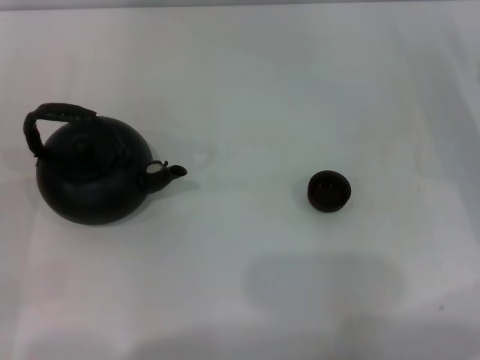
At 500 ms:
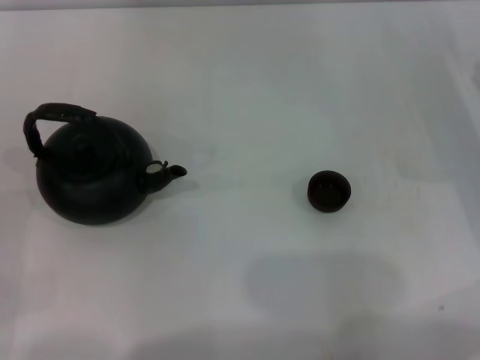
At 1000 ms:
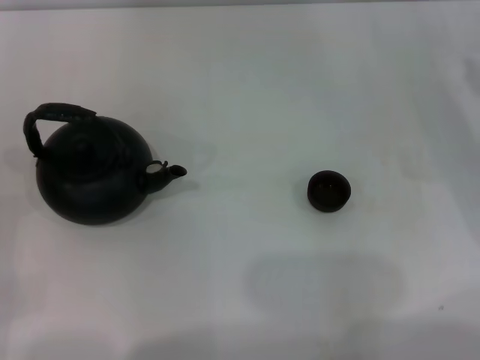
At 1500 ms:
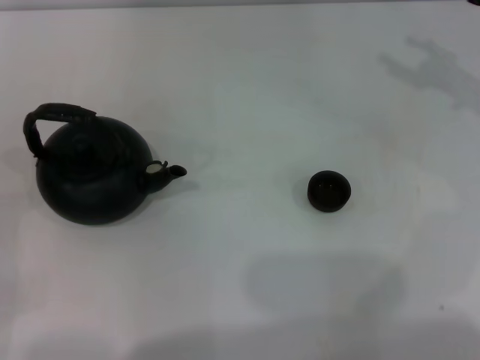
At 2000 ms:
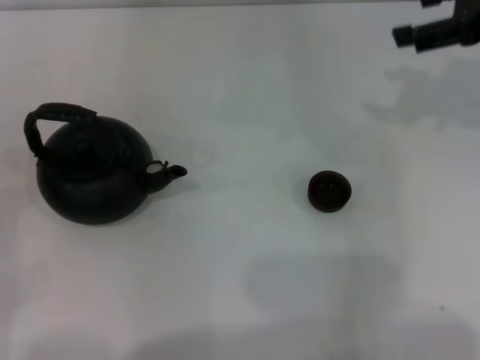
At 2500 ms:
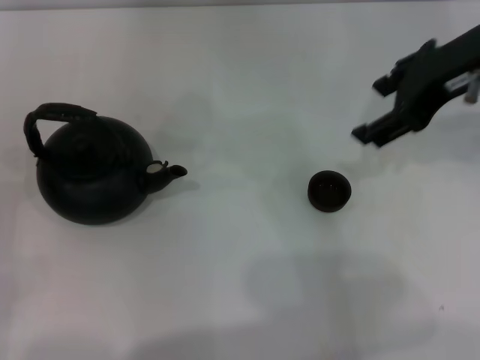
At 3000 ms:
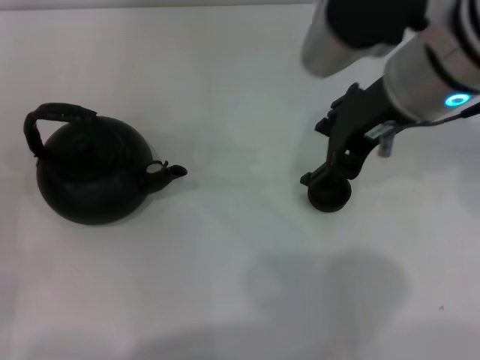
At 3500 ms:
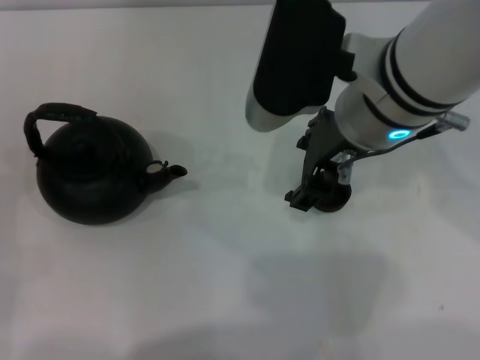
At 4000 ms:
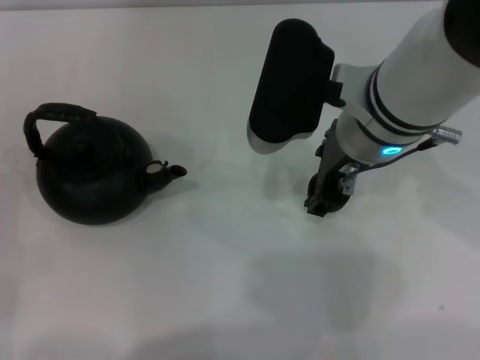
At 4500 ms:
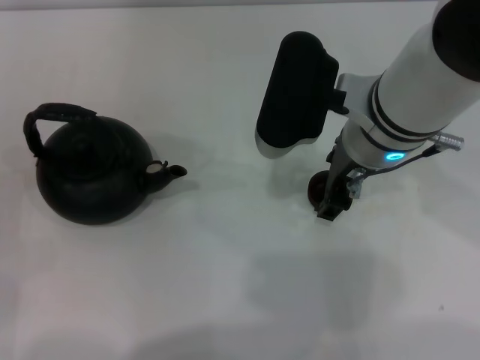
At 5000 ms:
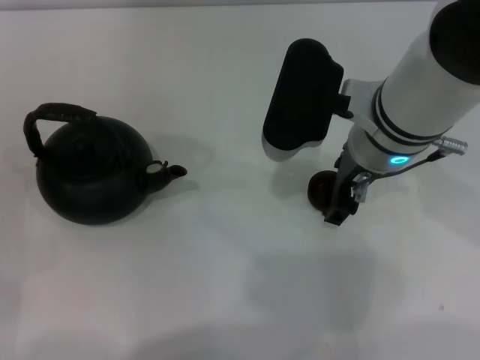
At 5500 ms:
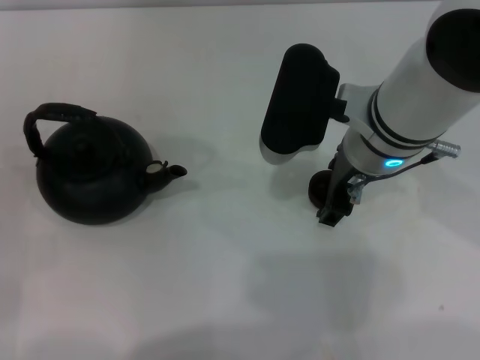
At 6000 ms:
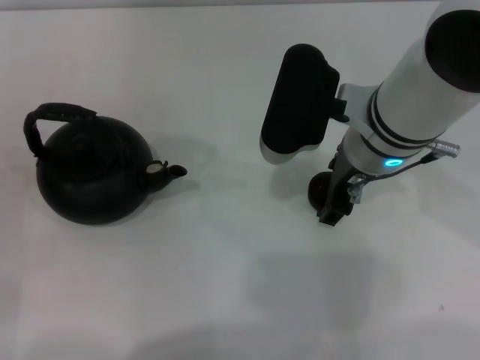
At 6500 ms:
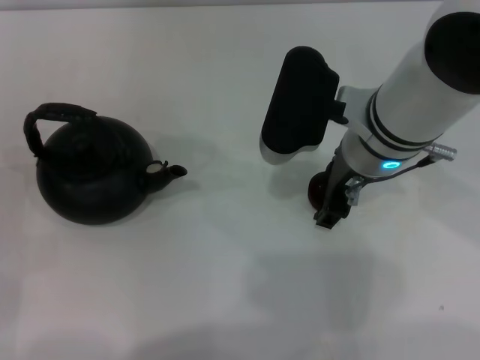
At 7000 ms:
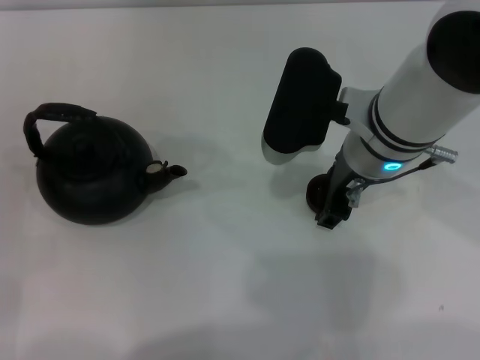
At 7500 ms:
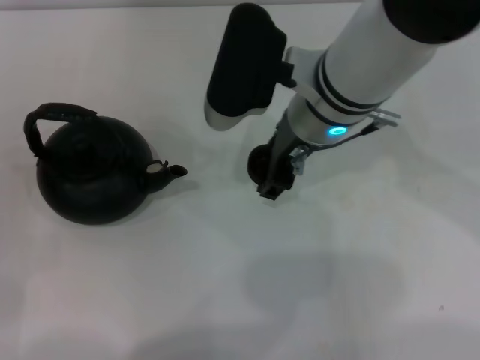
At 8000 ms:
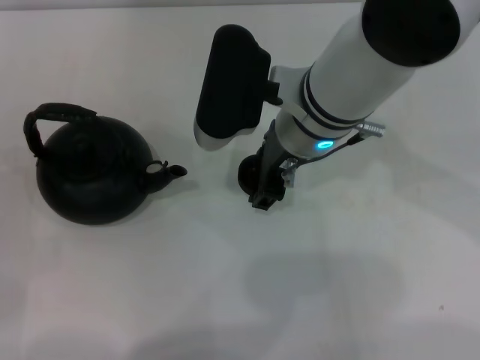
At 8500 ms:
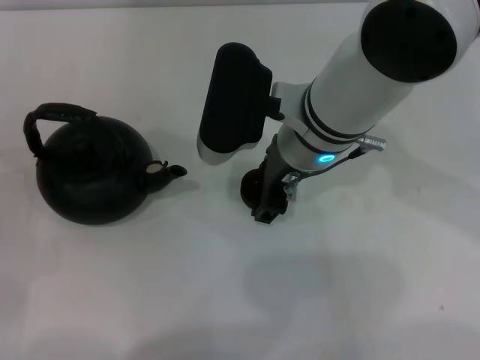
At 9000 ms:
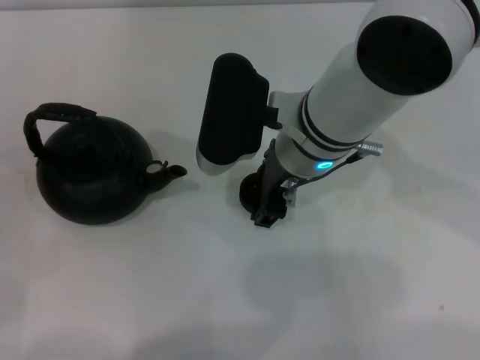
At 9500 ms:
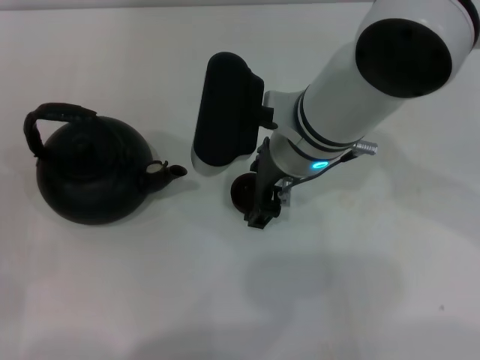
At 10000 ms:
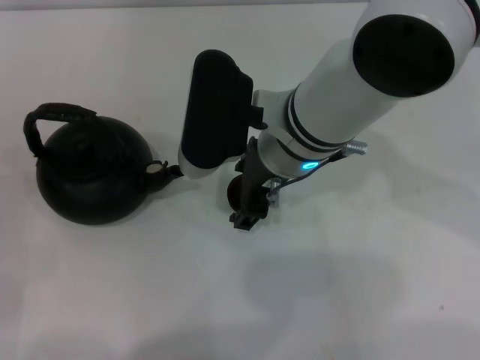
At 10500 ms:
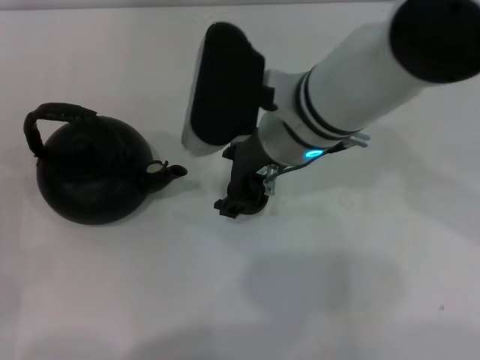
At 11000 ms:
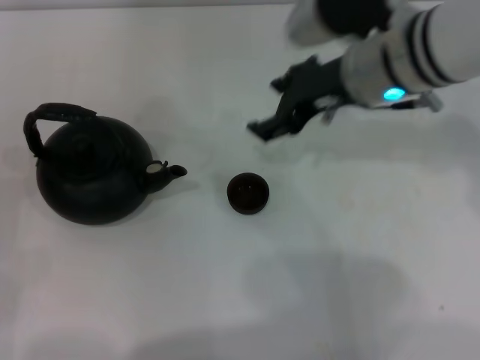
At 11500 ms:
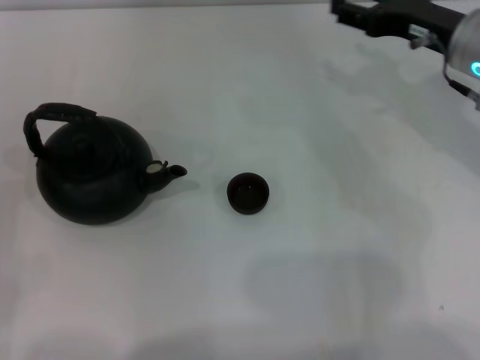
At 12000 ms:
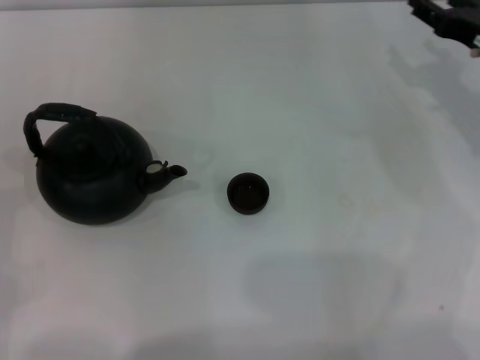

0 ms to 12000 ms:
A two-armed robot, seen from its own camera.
Task of the whole recording: Grasp the handle of the teapot with one hand and pour tea into the teacup.
Step, 0 ms to 7000 ms: Pick up the teacup with the right gripper.
Step, 8000 ms to 10000 ms: Place the teacup in the center of view with the right gripper.
0 ms to 2000 ms: The right gripper goes about 20 cm upward.
2000 ms to 4000 ms: The right gripper heads to the left, covering about 20 cm.
4000 ms to 6000 ms: The grippers make only small movements.
6000 ms to 8000 ms: The right gripper heads to the left, covering approximately 5 cm.
8000 ms to 10000 ms: The grippers stay close to where they were, moving slightly.
10000 ms to 12000 ms: The right gripper shifts approximately 25 cm to the right.

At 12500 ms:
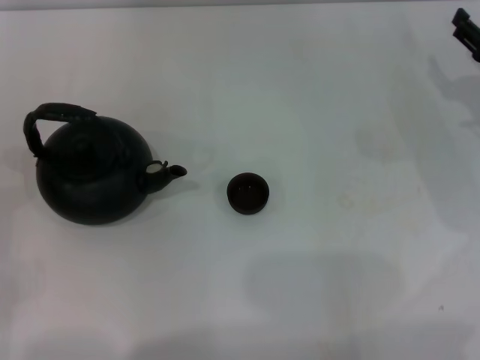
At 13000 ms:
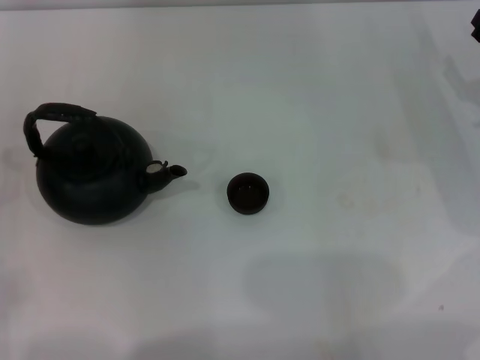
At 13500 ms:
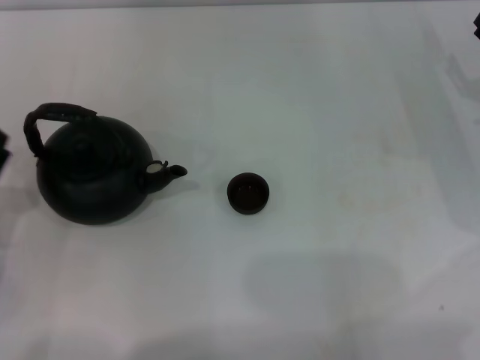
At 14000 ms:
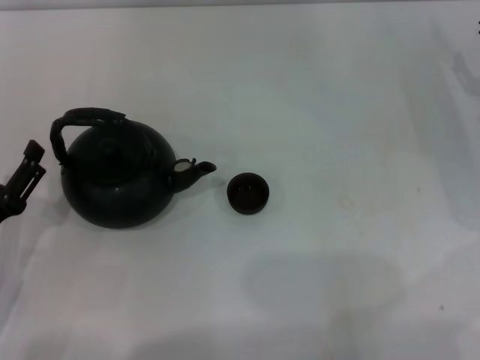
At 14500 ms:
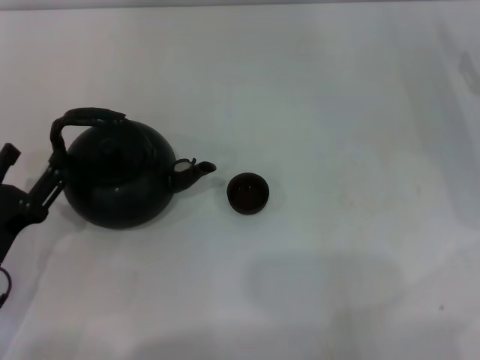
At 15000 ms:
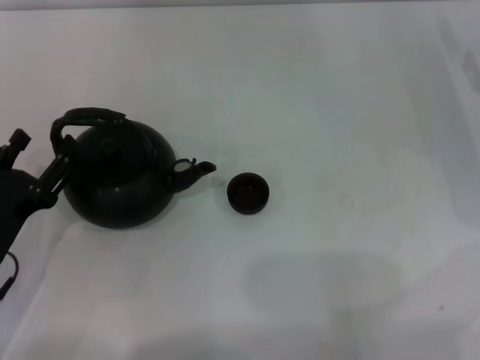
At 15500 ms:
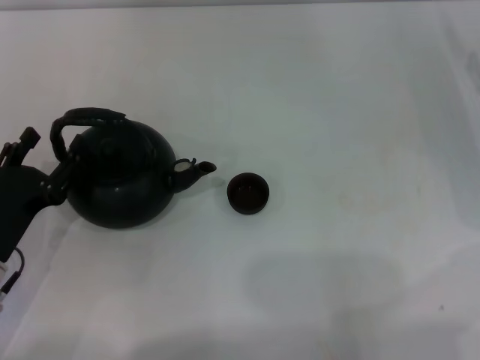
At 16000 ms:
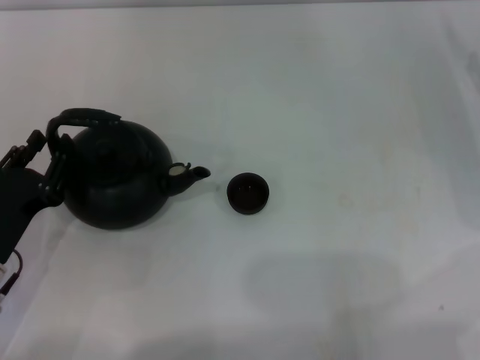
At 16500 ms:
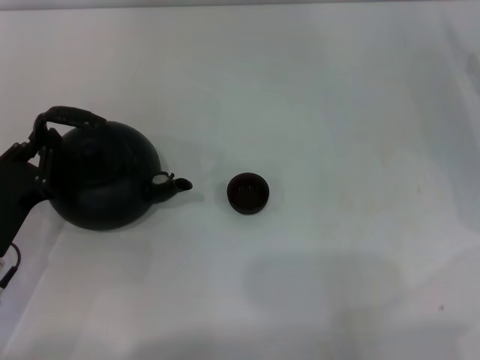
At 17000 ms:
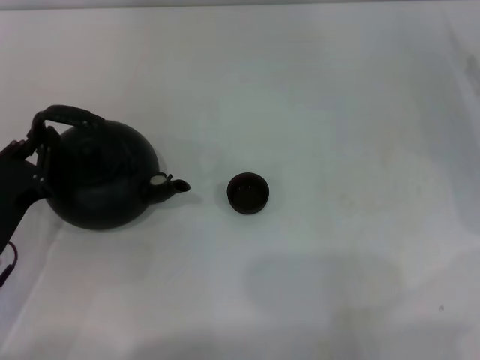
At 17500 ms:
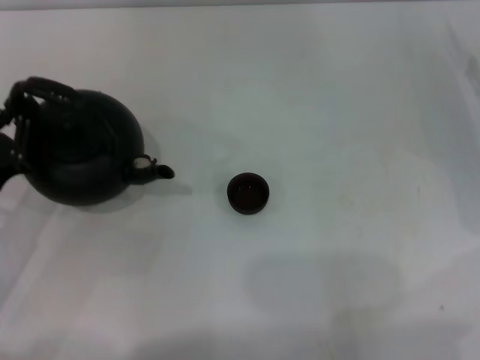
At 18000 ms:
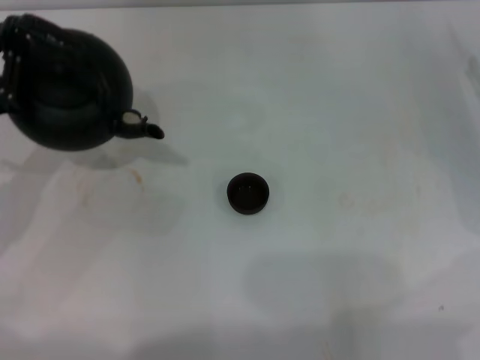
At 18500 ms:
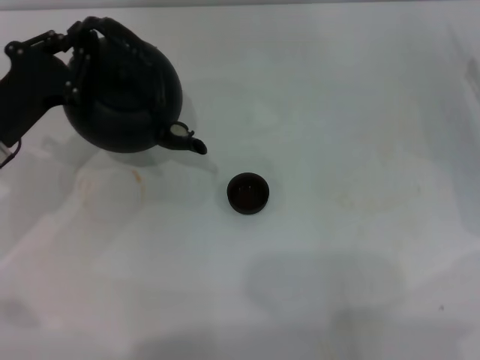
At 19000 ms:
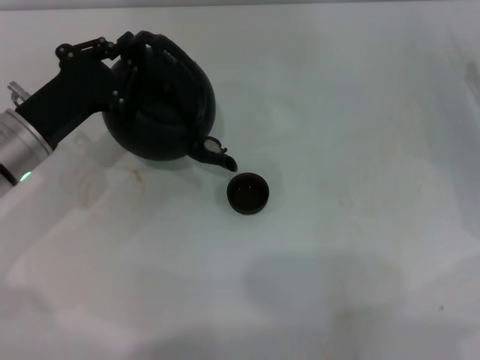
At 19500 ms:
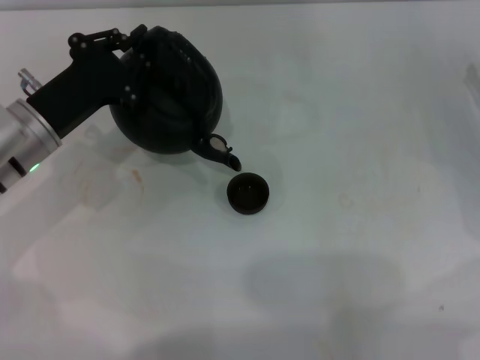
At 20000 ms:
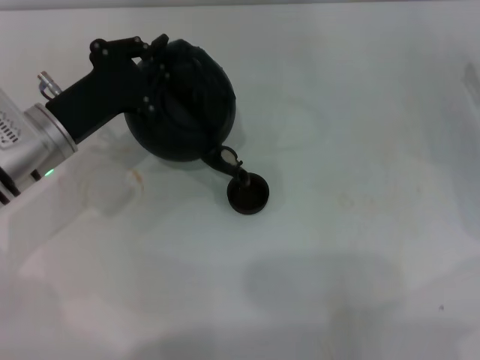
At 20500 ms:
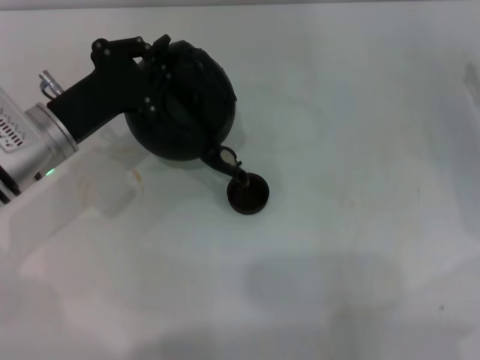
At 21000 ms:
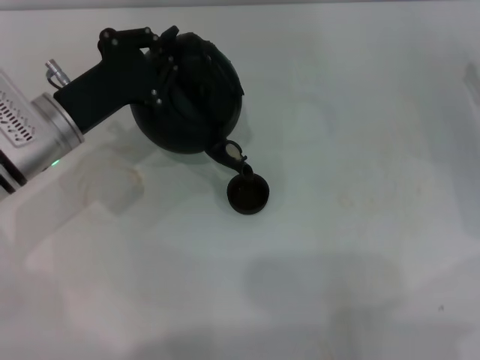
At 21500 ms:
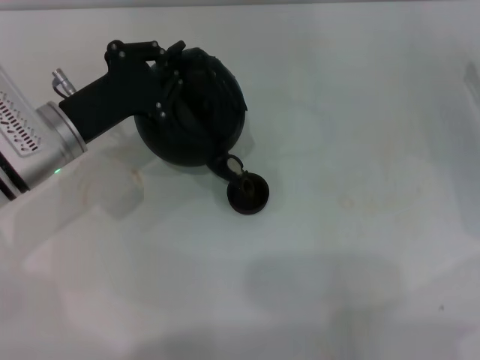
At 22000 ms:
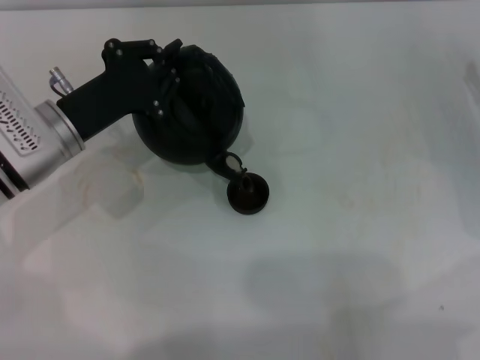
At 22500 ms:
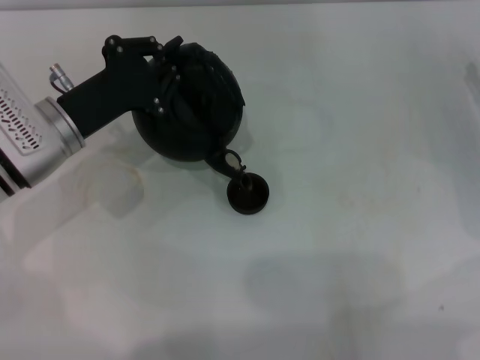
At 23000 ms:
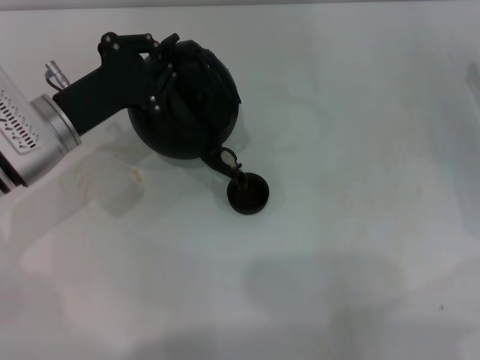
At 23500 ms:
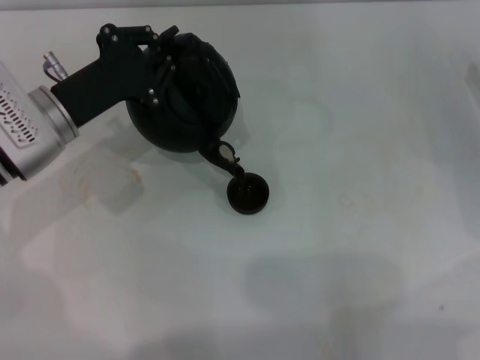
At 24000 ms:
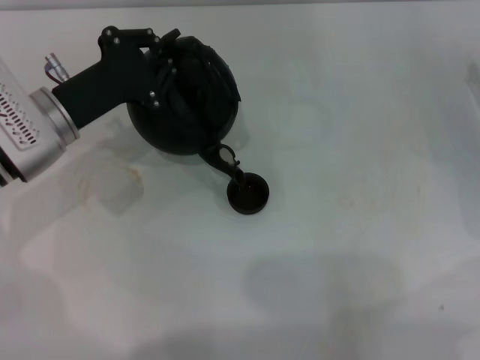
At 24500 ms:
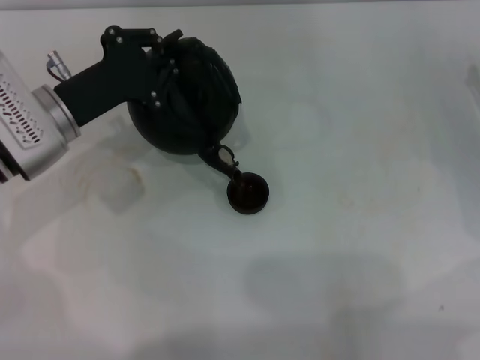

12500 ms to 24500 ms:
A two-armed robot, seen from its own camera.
Task of the whole recording: Grasp the handle of the teapot with one hand and pour tea into the teacup.
Step, 12500 ms to 18000 ms: Pick up the teapot with the left gripper.
12500 ms to 14500 ms: The left gripper heads to the right, covering some 10 cm.
14500 ms to 16500 ms: The left gripper closes.
16500 ms to 18500 ms: The left gripper moves forward and upward, roughly 10 cm.
18500 ms to 20500 ms: The left gripper heads to the right, covering about 5 cm.
20500 ms to 24500 ms: The grippers make only small movements.

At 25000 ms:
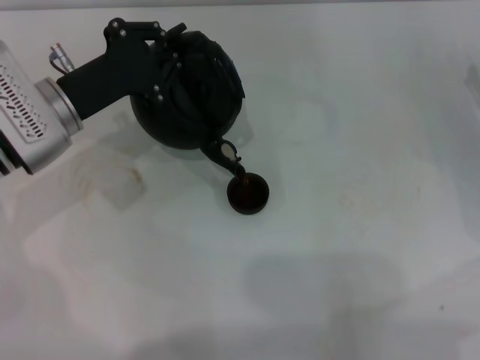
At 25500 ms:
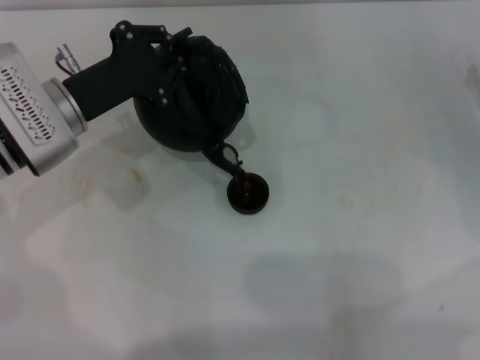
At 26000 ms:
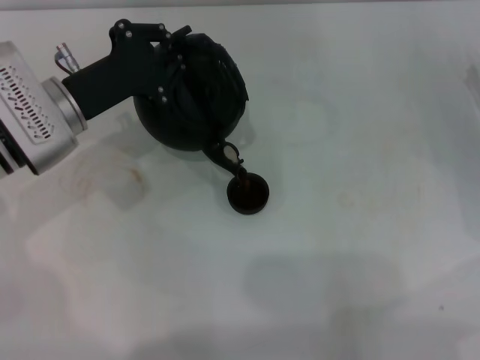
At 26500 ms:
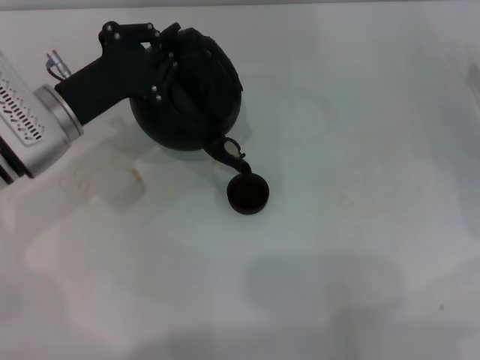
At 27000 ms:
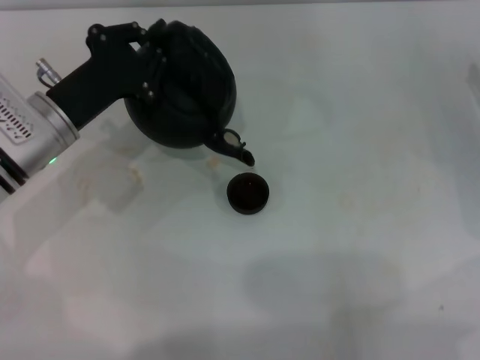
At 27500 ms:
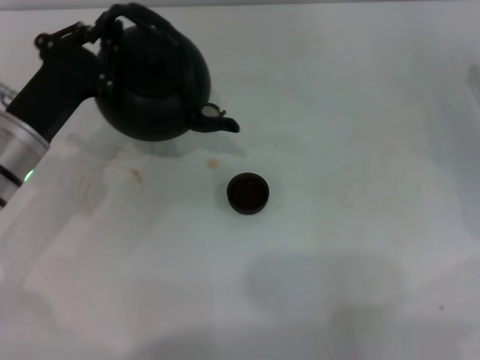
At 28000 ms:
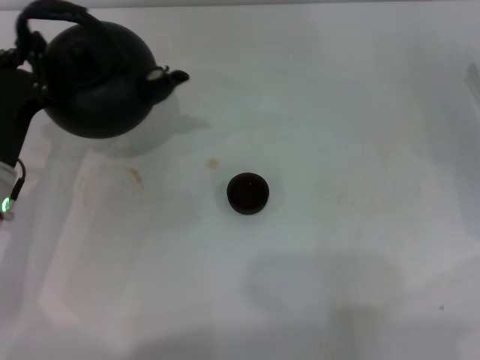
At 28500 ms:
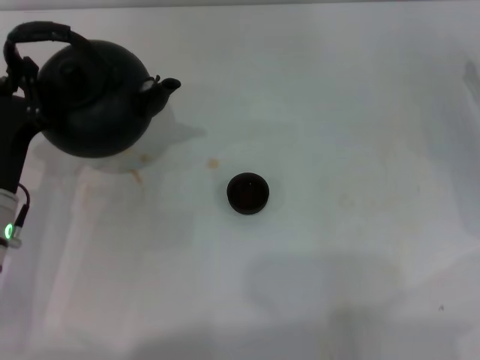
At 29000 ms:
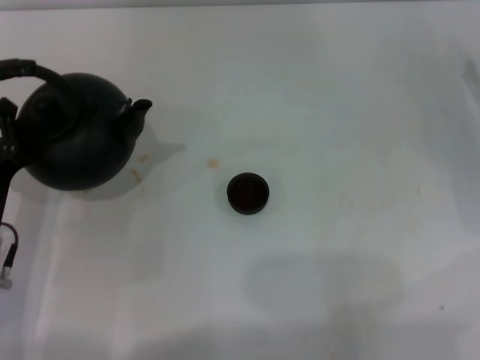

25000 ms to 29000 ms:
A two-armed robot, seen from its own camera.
Task of the whole recording: Grasp the handle of the teapot with one hand and pour tea into the teacup.
Step, 25000 ms to 27000 ms: Pour tea into the teacup with the left gripper.
25000 ms to 27000 ms: The grippers stay close to where they were, moving slightly.
27000 ms to 29000 ms: The left gripper shifts some 10 cm backward.
